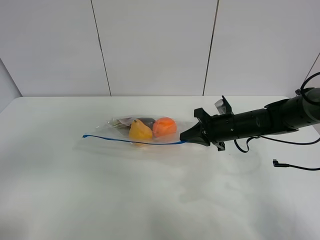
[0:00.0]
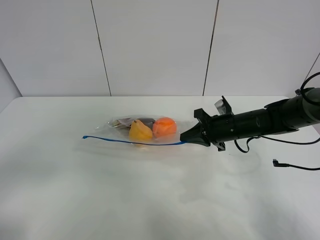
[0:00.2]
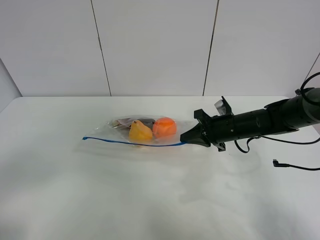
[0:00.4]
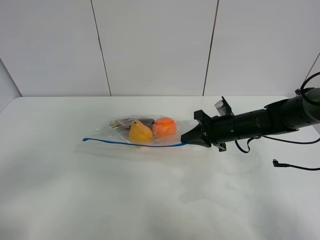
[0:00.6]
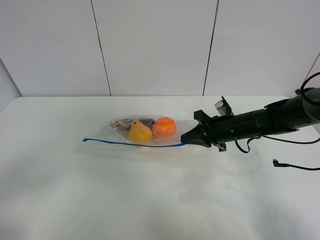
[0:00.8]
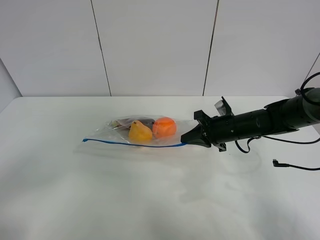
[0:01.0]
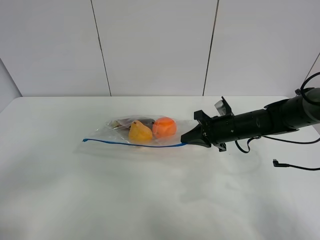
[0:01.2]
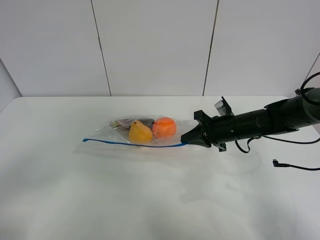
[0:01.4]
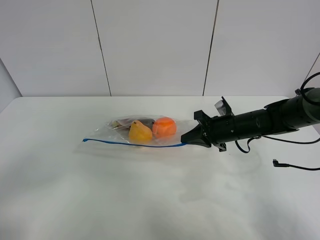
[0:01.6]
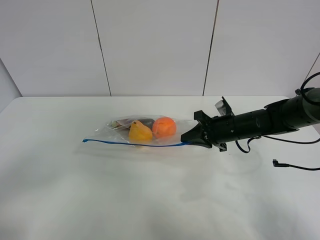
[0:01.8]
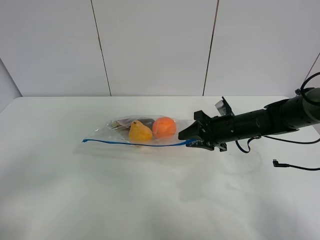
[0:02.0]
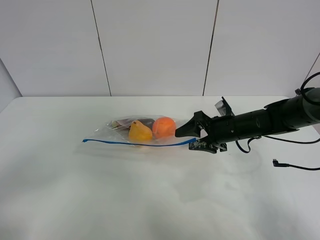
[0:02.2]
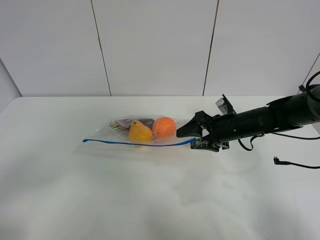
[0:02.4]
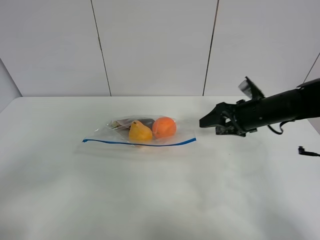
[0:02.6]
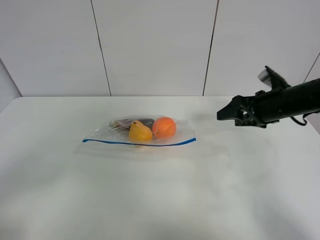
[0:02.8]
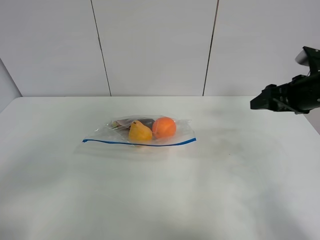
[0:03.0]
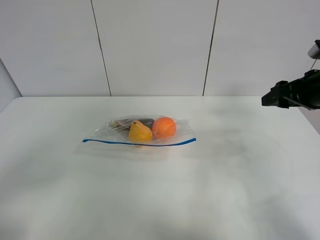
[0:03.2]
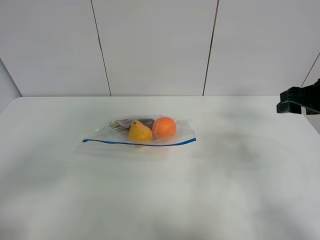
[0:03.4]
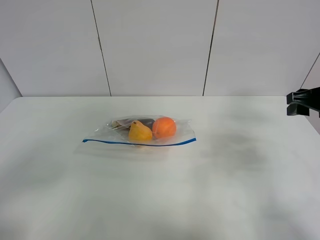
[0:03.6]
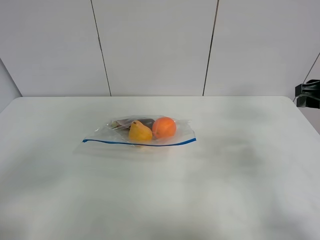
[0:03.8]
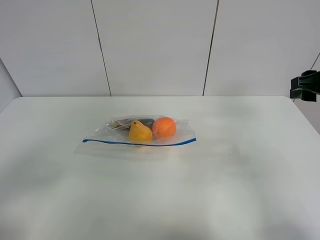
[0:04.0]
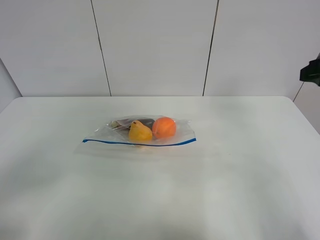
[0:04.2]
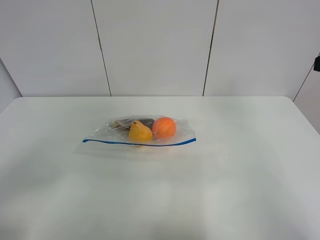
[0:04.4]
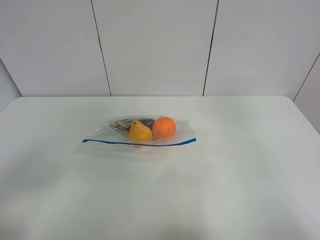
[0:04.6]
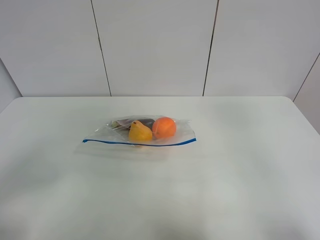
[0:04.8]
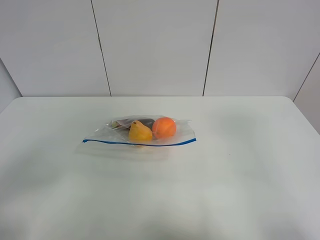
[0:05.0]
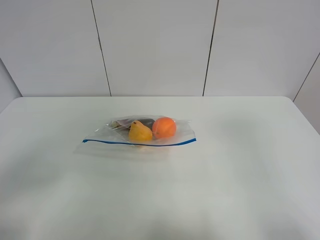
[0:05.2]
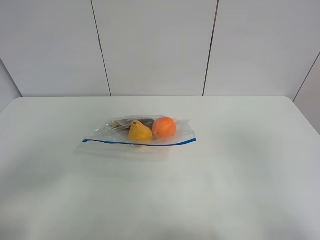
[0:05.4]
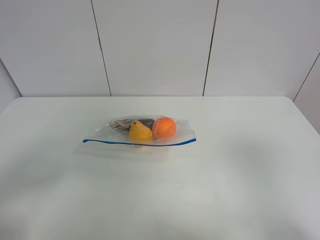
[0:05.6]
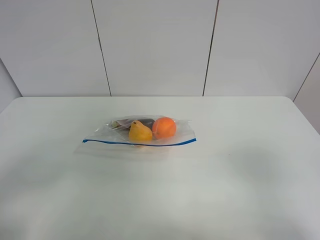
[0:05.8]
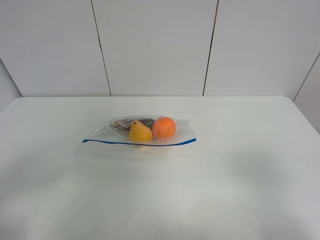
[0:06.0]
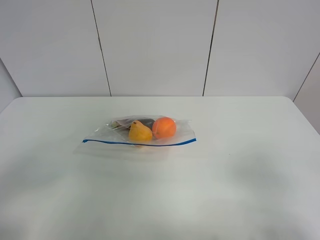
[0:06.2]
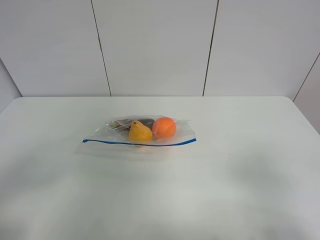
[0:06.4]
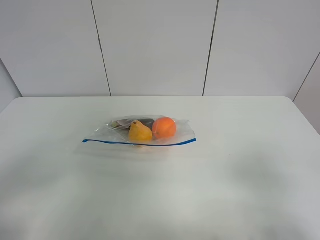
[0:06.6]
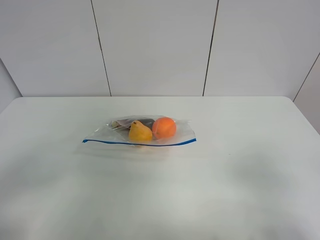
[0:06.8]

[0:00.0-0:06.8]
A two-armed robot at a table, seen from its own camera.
Step, 0:00.0 to 0:02.4: Place the fruit bag with right gripper.
0:00.0 to 0:01.4: The left gripper heads downward, covering some 5 cm.
0:01.4 to 0:02.8: The right gripper heads upward and to the right, covering roughly 15 cm, and opens its fingers.
0:02.8 to 0:04.0: The right gripper moves upward and backward, approximately 10 cm.
0:04.0 to 0:05.4: The right gripper is displaced backward by roughly 30 cm.

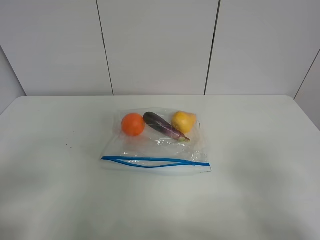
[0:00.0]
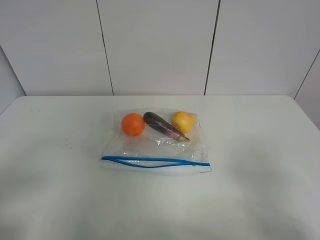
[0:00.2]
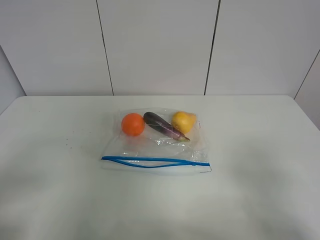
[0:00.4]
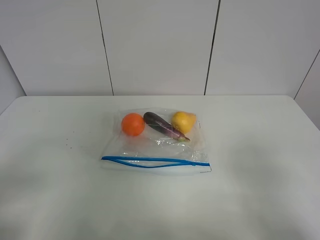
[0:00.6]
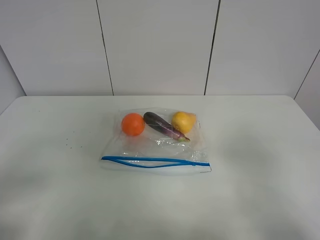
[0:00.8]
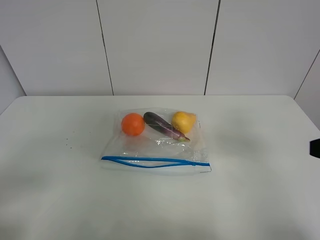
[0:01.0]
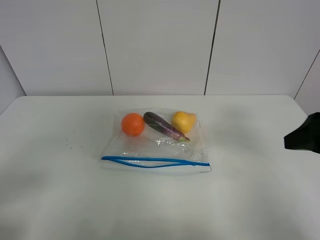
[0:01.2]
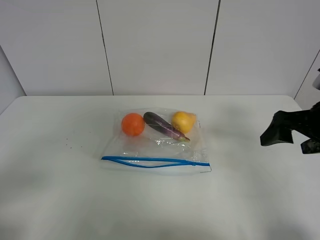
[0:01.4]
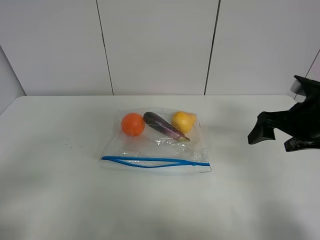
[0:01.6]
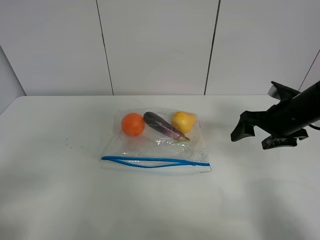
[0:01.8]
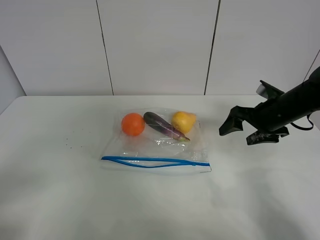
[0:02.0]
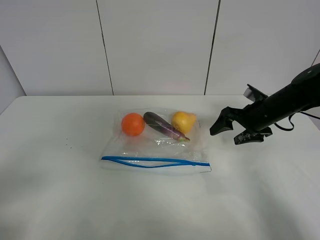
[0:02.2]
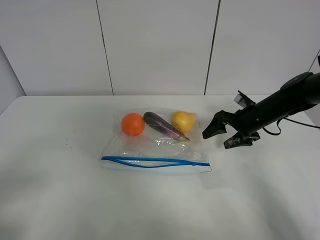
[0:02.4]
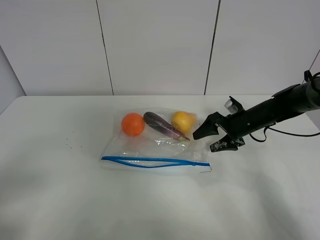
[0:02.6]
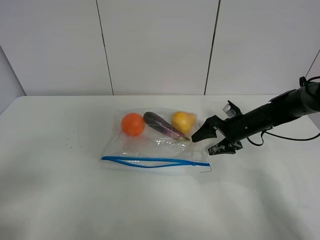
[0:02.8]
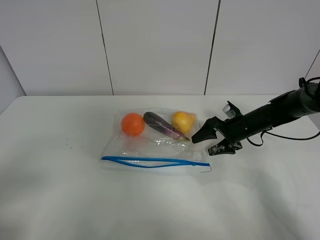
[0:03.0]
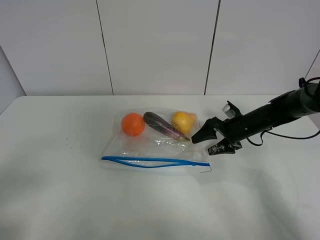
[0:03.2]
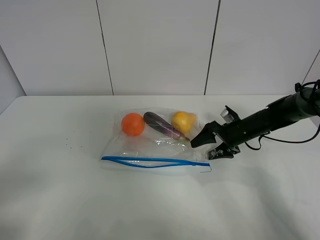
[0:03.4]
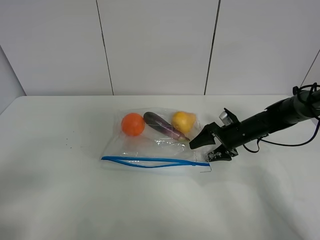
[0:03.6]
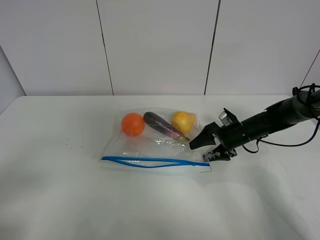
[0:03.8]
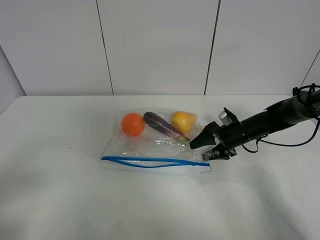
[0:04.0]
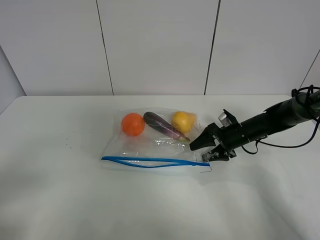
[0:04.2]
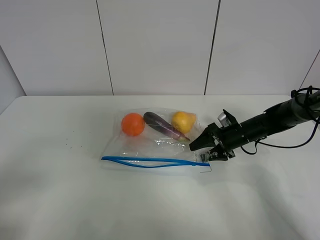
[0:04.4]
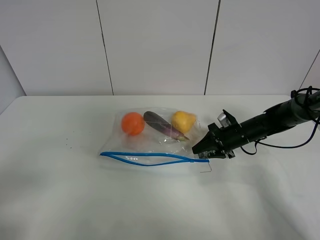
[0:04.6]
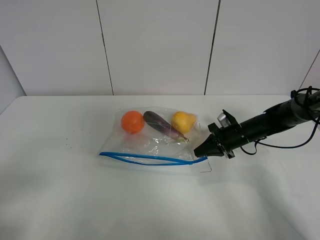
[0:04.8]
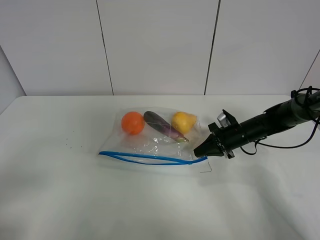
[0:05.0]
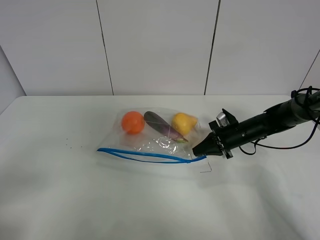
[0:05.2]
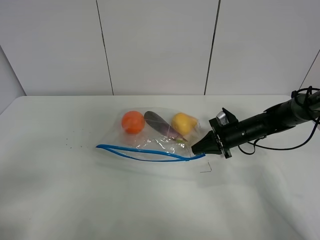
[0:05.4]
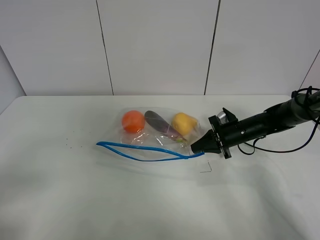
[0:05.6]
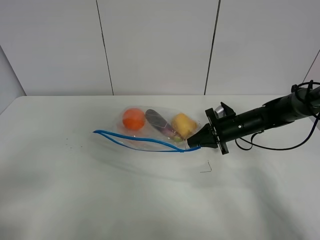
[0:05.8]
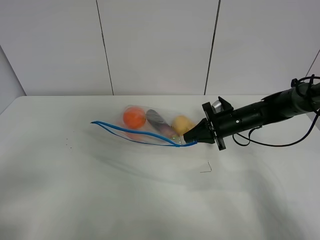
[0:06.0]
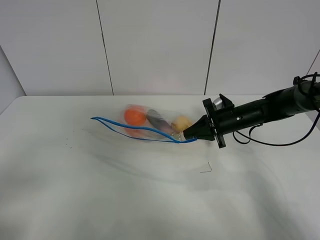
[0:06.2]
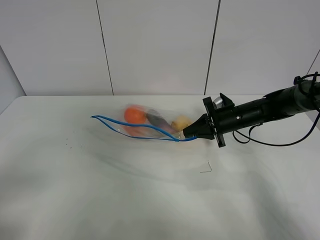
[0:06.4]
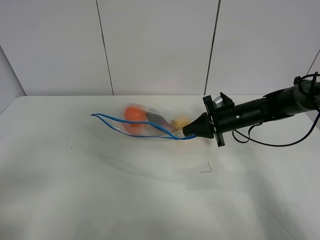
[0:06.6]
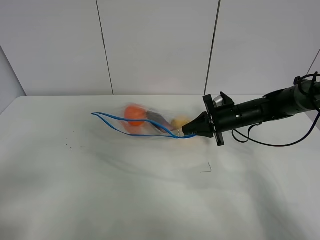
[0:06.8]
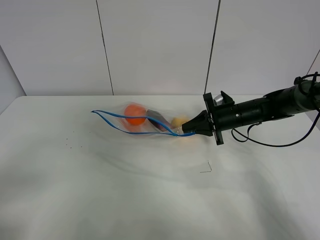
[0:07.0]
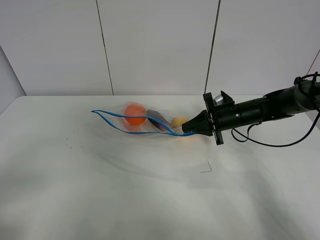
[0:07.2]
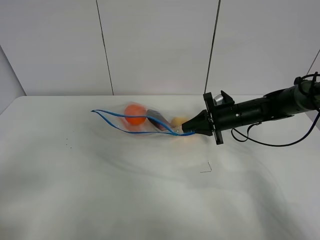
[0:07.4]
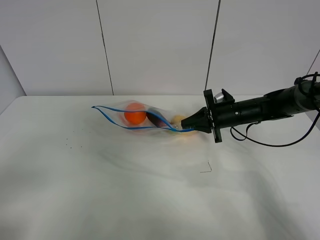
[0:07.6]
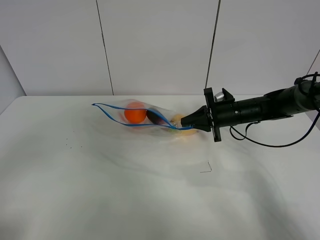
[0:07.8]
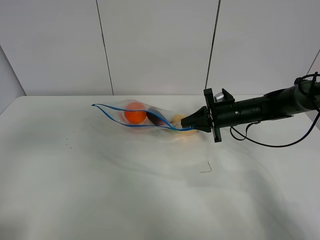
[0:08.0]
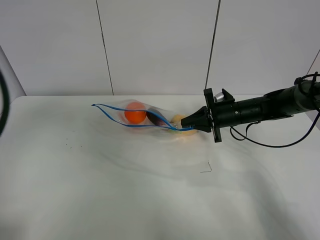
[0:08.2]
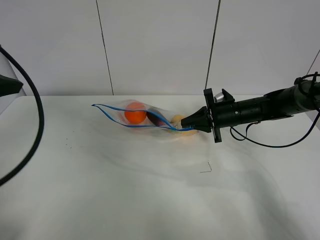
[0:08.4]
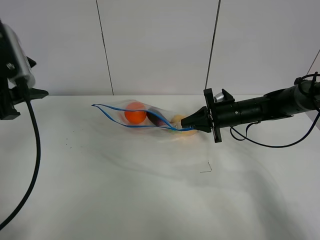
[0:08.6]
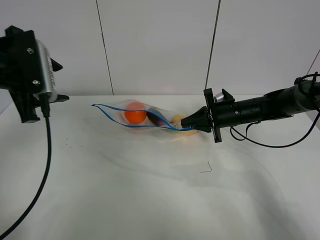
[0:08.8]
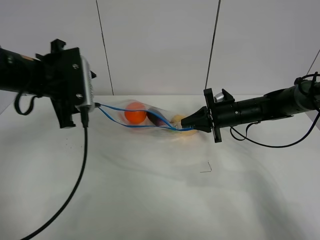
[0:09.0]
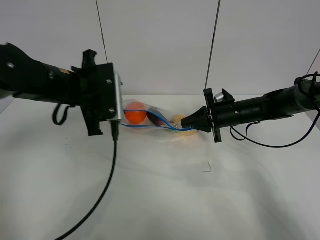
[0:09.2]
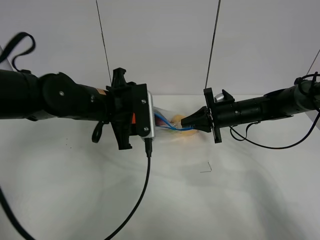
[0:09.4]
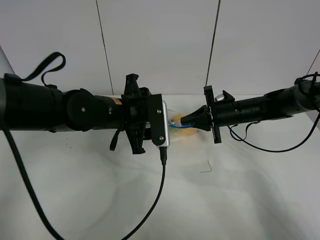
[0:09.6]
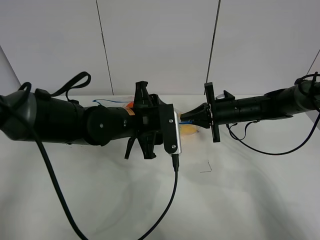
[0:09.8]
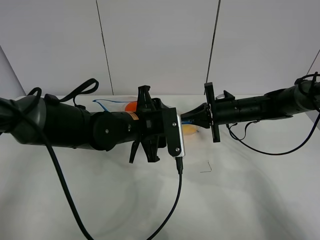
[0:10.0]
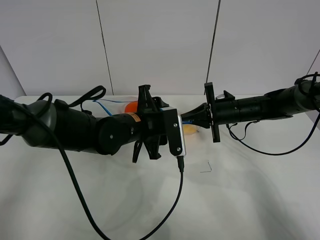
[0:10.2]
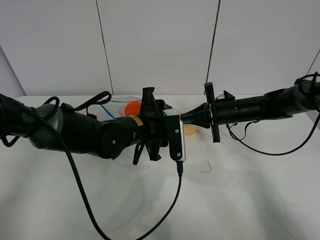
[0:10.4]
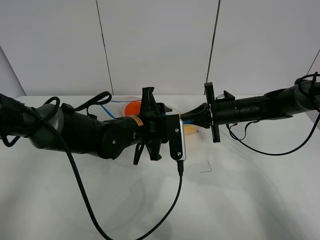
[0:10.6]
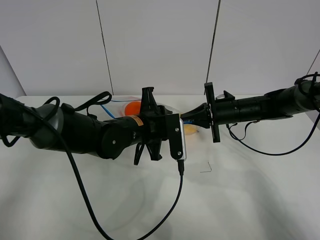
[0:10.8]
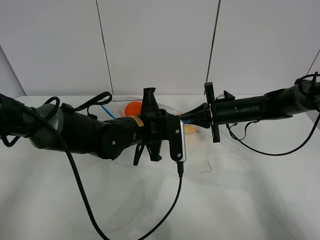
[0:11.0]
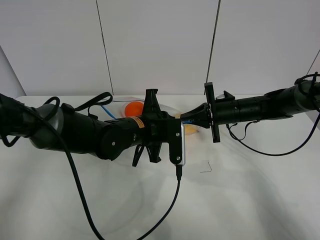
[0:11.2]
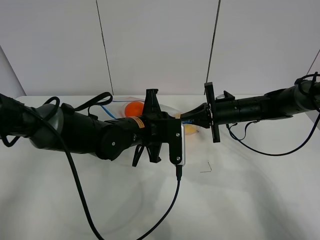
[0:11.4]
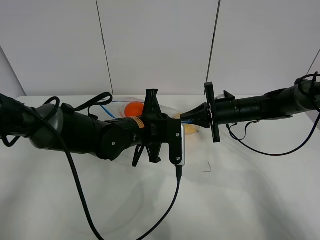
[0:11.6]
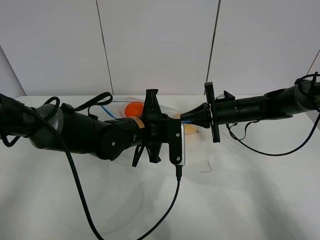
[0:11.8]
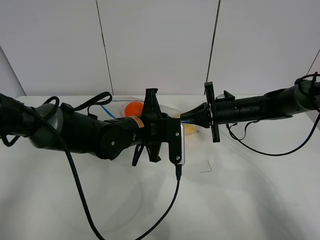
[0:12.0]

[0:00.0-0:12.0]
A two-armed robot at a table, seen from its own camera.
Step, 0:00.0 to 0:04.8: Grasp the fruit bag with right gripper.
Step, 0:05.0 to 0:08.0: Lift the fruit bag with your right gripper.
0:00.0 to 0:01.6: The right gripper moves forward, roughly 25 cm.
0:01.6 to 0:03.0: The right gripper heads downward and forward, covering roughly 20 cm.
0:03.0 to 0:04.4: The grippers move only a little.
0:04.4 to 0:06.0: The right gripper shifts by some 5 cm, and closes.
0:06.0 to 0:07.6: There are only small adjustments of the grippers.
0:07.6 to 0:09.0: The left gripper goes about 30 cm forward and to the right.
0:09.0 to 0:10.4: The left gripper shifts about 20 cm to the right and downward.
0:10.4 to 0:12.0: The left gripper closes its fingers.

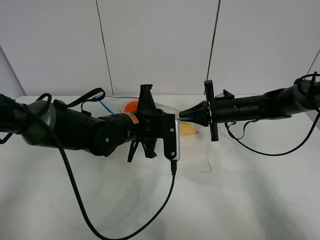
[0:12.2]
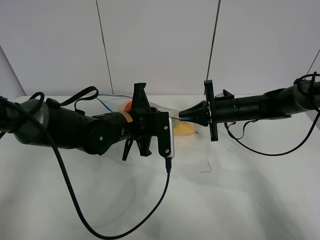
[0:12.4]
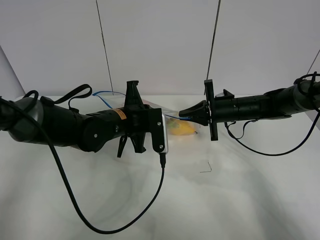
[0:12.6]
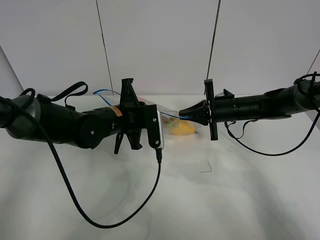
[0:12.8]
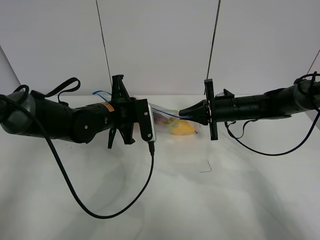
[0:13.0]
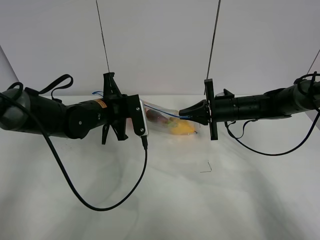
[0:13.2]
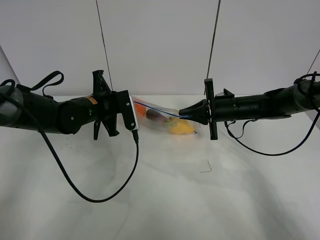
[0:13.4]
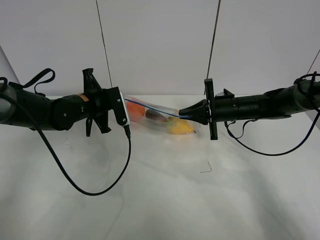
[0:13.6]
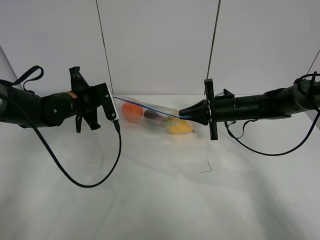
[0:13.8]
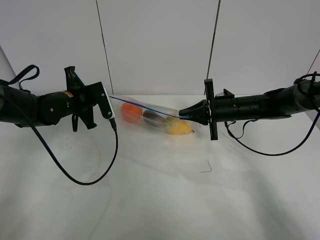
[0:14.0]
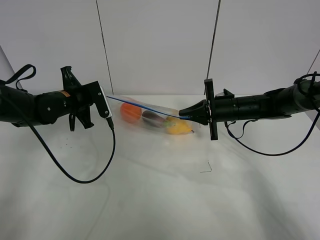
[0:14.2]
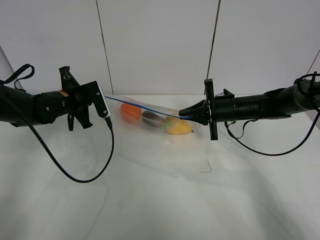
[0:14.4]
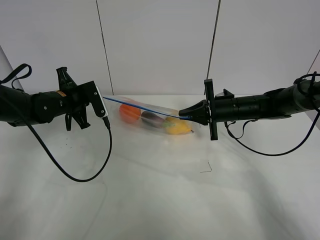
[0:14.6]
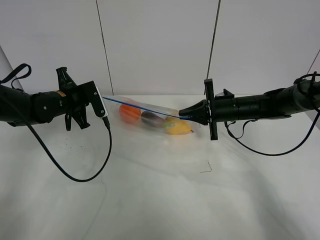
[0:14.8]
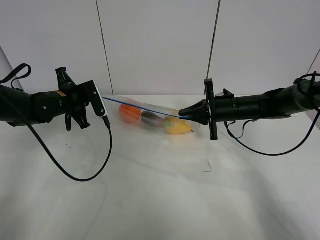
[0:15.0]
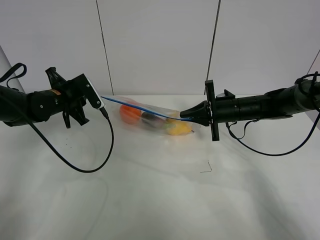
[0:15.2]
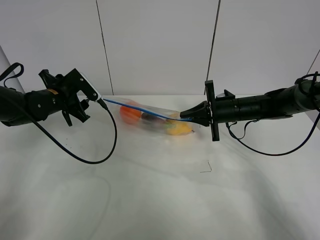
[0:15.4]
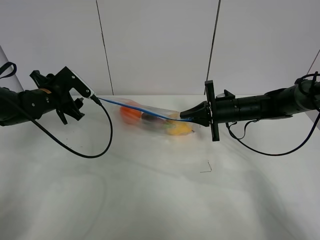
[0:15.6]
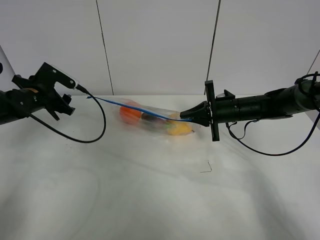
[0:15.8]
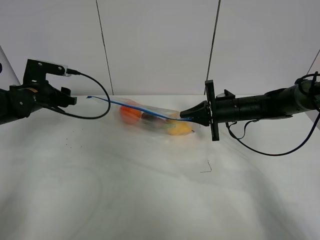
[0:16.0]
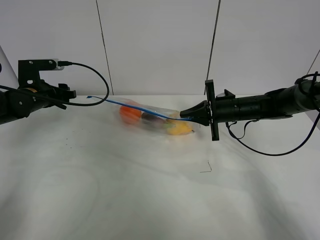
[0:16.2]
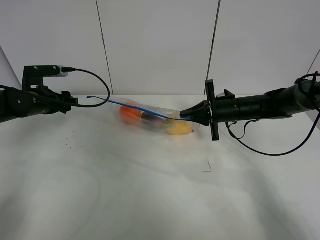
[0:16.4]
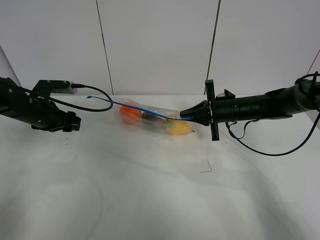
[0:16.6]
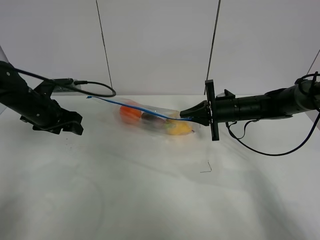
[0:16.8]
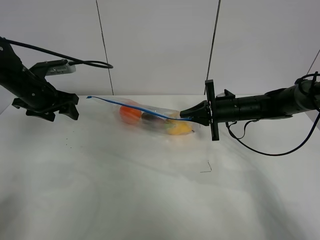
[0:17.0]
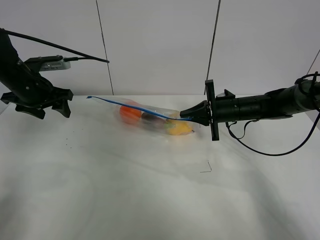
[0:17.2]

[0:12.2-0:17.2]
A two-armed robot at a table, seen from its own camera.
Step, 0:12.2 to 0:16.0: Pull the fruit bag with left gripper.
0:12.2 to 0:13.8: The left gripper heads to the left and forward, covering approximately 15 cm.
0:13.8 to 0:15.6: The left gripper travels to the left by approximately 5 cm, and opens.
0:15.6 to 0:17.2: The left gripper moves upward, approximately 5 cm.
